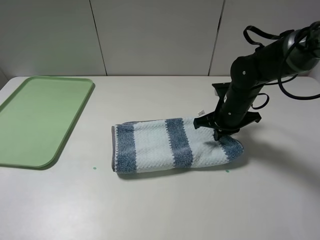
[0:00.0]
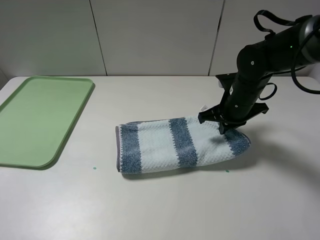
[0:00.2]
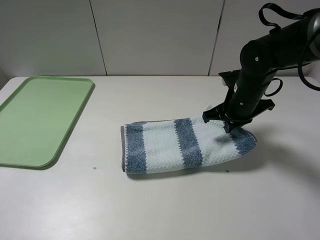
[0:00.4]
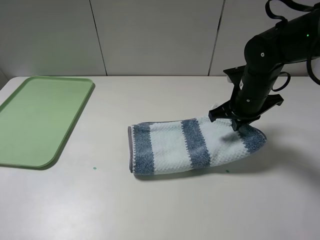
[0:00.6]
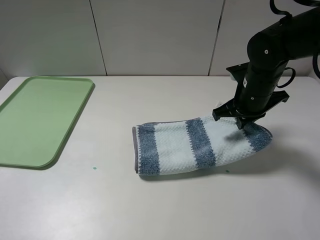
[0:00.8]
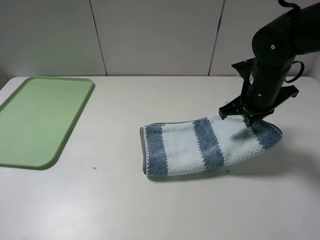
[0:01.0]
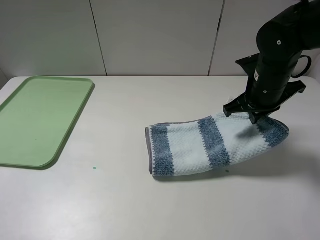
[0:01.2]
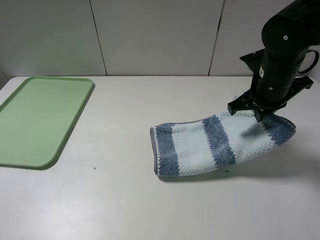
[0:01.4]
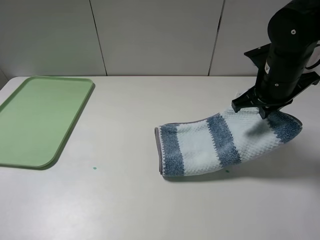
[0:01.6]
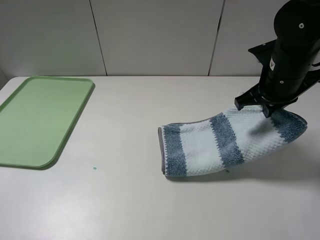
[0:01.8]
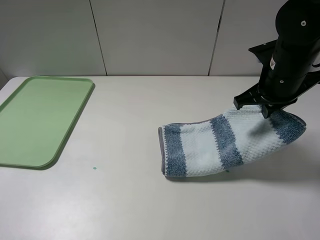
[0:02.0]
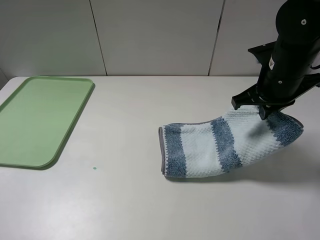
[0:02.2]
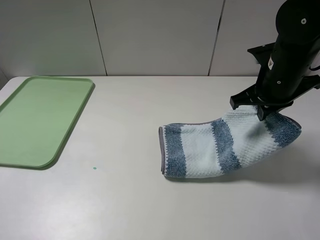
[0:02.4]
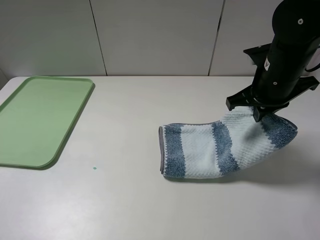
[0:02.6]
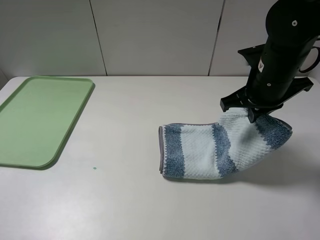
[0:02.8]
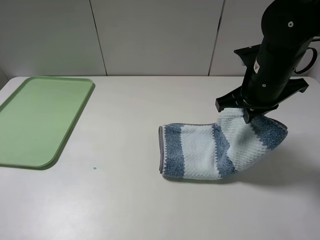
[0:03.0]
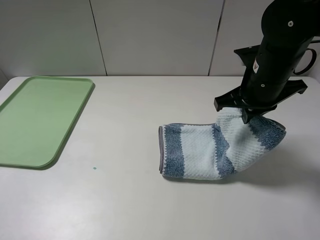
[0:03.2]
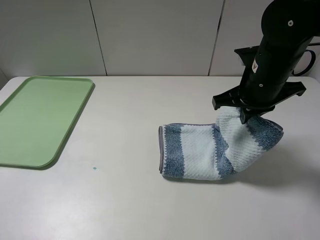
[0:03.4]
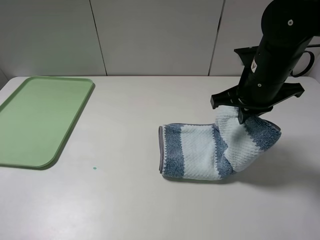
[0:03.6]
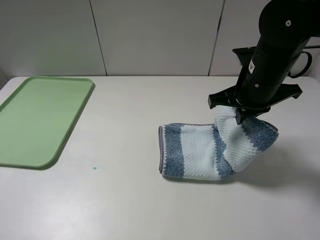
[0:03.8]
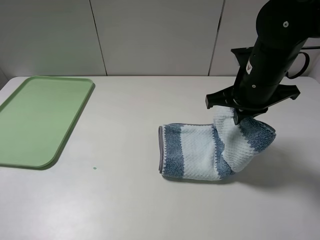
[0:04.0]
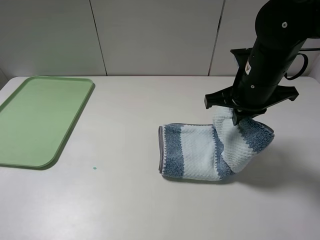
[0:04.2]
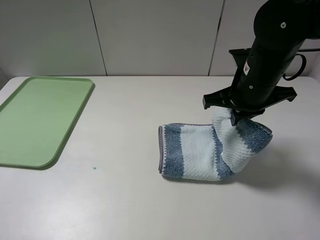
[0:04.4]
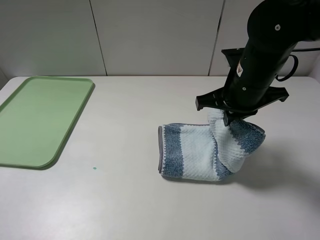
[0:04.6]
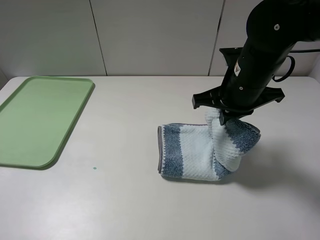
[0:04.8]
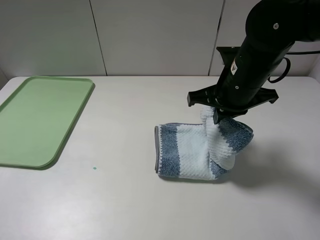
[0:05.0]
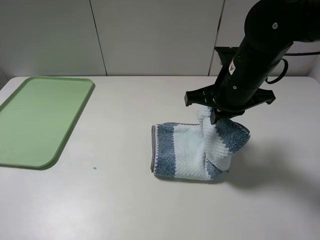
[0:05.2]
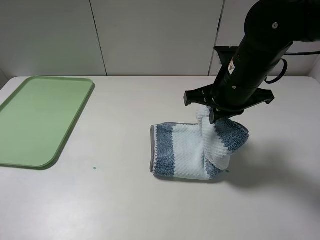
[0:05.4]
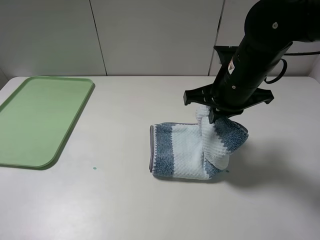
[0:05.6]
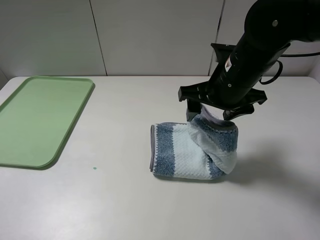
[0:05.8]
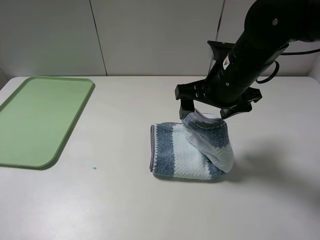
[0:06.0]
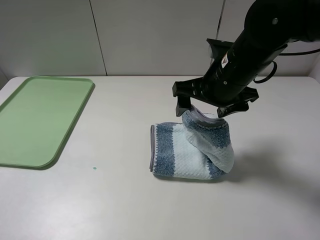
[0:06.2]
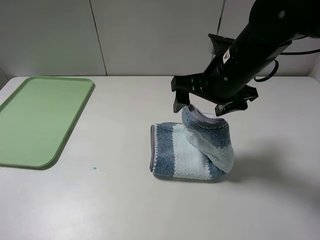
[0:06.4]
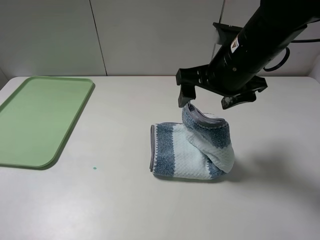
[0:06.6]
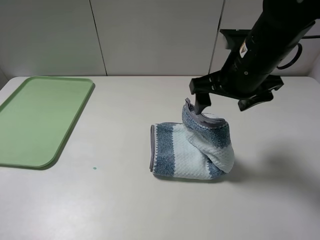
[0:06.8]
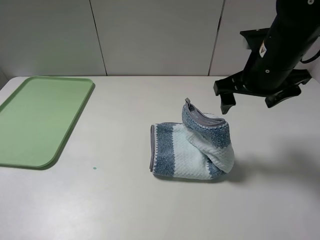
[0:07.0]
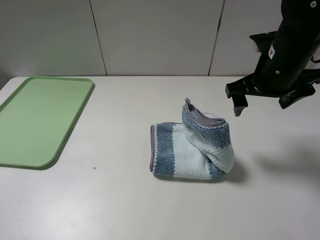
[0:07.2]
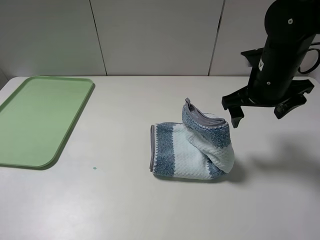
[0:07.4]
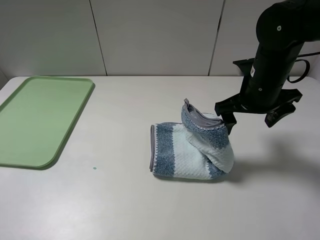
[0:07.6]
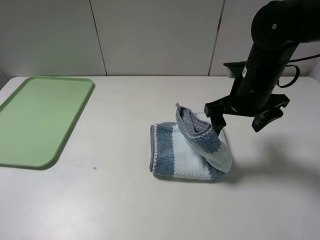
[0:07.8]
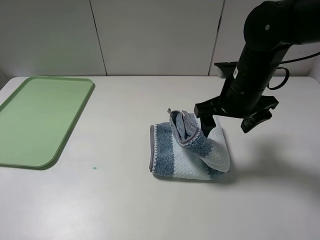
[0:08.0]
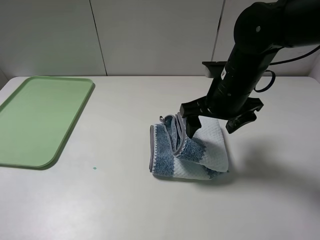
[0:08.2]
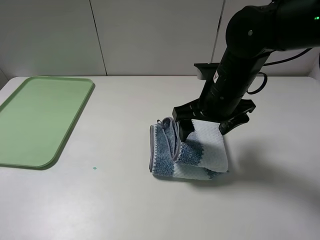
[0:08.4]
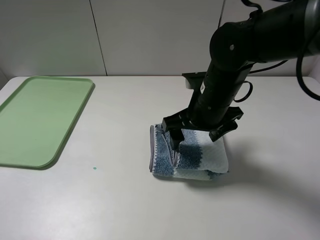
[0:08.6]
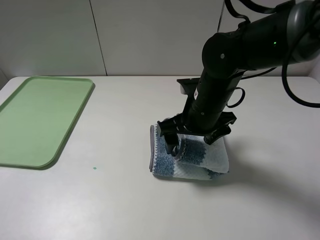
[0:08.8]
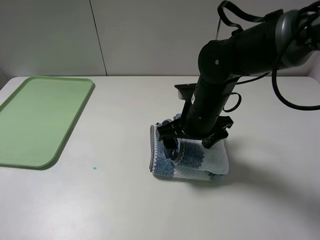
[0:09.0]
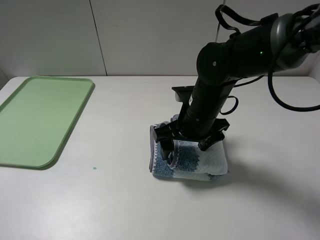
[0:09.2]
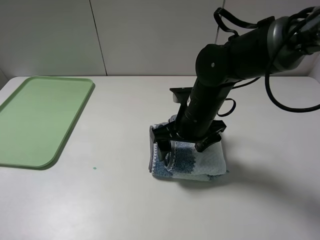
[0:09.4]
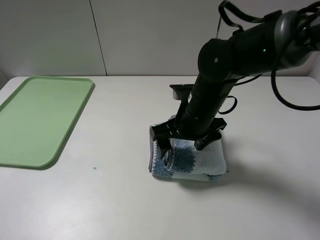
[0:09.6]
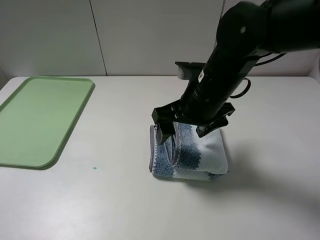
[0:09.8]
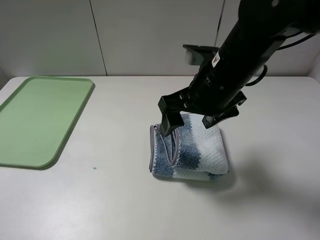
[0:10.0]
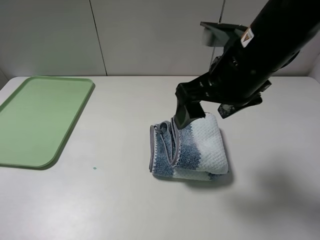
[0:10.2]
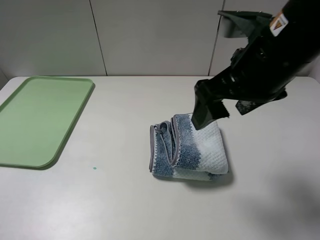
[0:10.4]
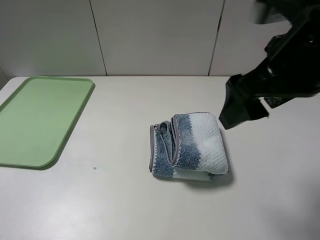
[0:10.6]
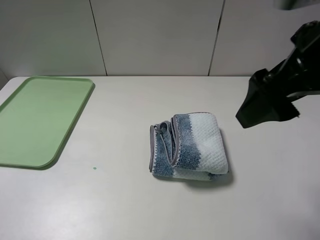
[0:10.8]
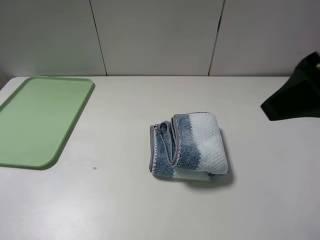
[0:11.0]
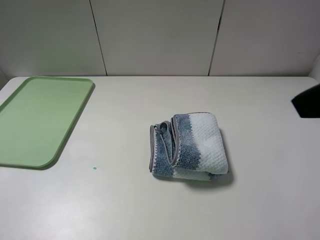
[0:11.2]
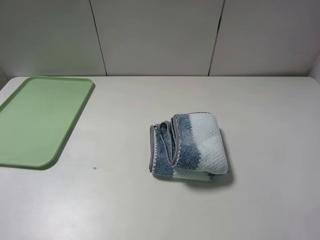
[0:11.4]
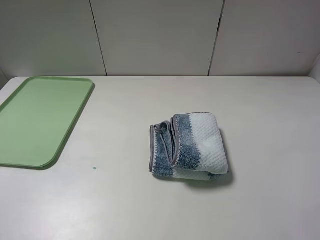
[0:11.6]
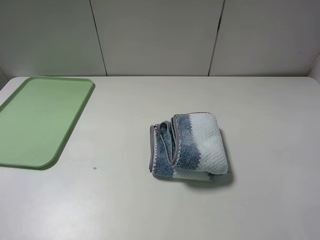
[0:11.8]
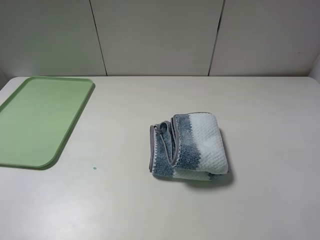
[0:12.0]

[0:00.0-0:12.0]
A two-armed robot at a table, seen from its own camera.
Step, 0:00.2 to 0:09.8: Fold the blue white towel from right to left with right gripper.
0:00.0 to 0:01.6: The right gripper goes roughly 10 cm upward.
0:01.6 to 0:04.4: The grippers move only a little.
0:04.4 to 0:06.0: The right gripper opens.
0:06.0 to 0:07.6: The right gripper goes approximately 5 cm to the right.
0:07.6 to 0:09.0: The right gripper shifts approximately 10 cm to the left.
0:09.0 to 0:10.4: The right gripper heads upward and backward, covering approximately 15 cm.
0:10.4 to 0:12.0: The right gripper shifts about 25 cm backward and to the right.

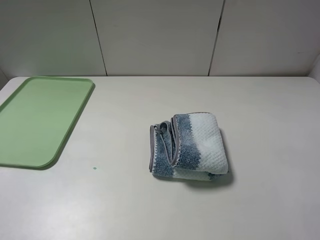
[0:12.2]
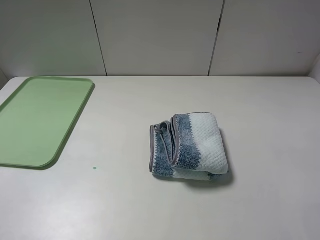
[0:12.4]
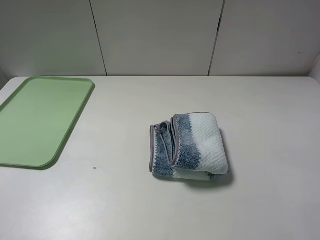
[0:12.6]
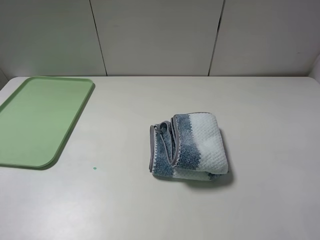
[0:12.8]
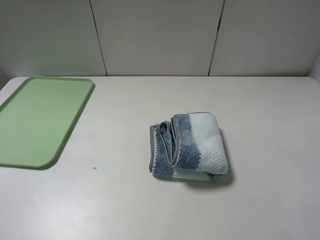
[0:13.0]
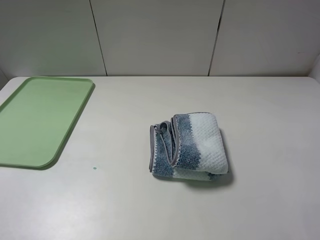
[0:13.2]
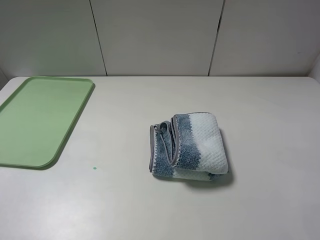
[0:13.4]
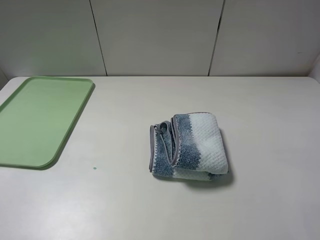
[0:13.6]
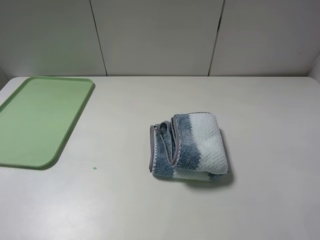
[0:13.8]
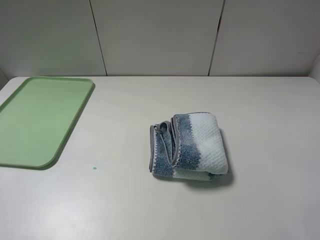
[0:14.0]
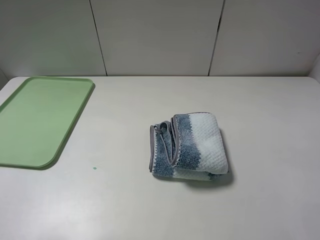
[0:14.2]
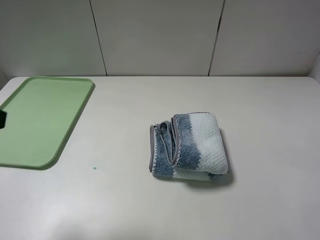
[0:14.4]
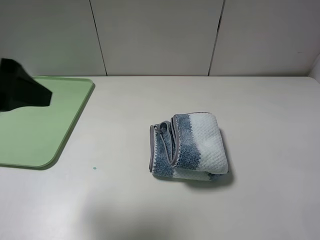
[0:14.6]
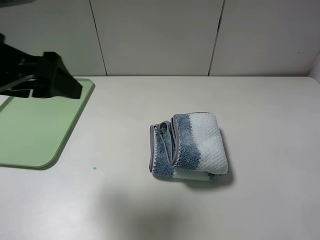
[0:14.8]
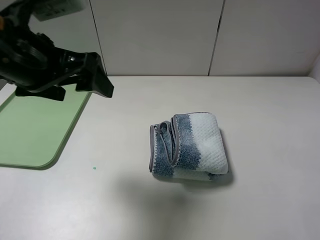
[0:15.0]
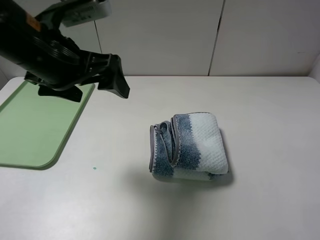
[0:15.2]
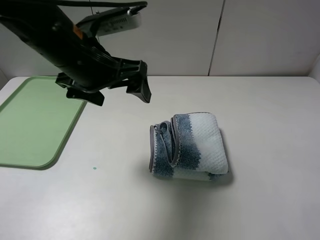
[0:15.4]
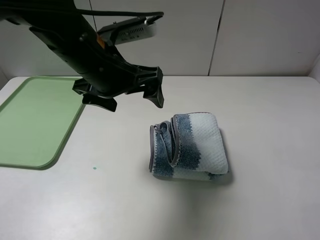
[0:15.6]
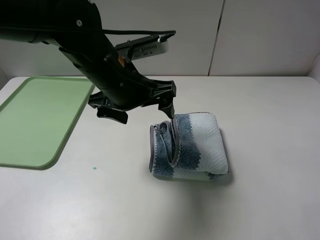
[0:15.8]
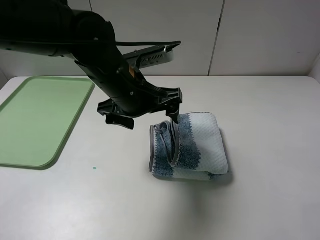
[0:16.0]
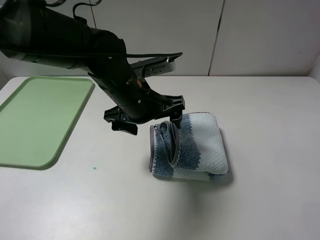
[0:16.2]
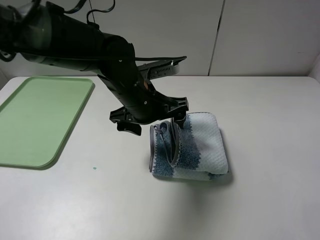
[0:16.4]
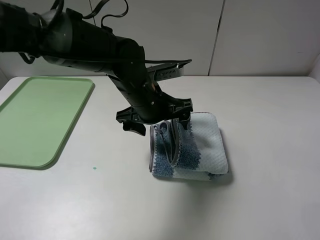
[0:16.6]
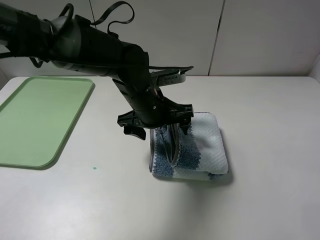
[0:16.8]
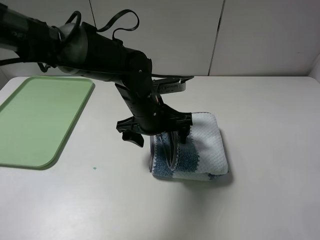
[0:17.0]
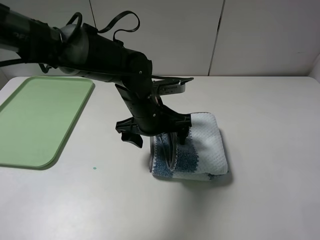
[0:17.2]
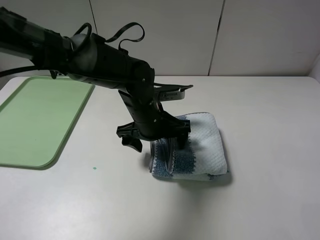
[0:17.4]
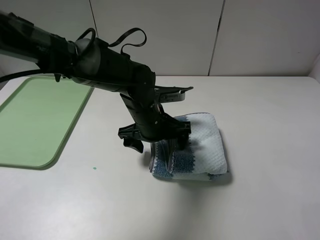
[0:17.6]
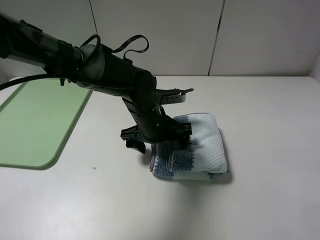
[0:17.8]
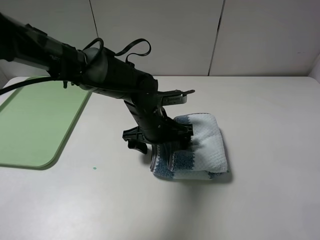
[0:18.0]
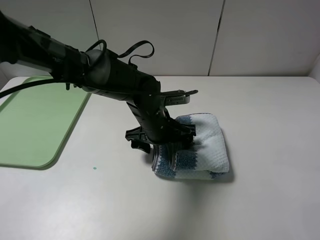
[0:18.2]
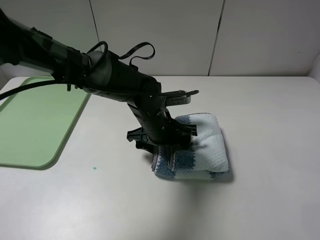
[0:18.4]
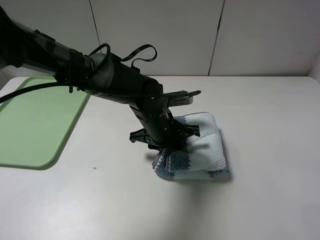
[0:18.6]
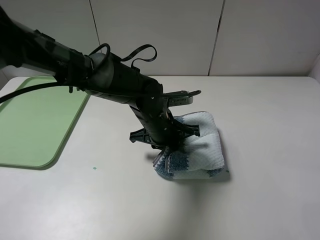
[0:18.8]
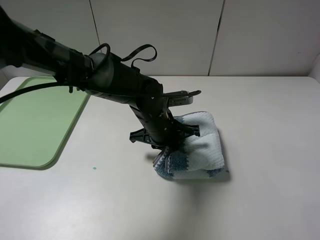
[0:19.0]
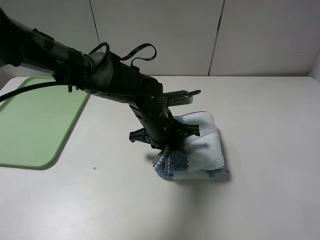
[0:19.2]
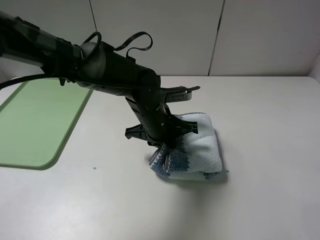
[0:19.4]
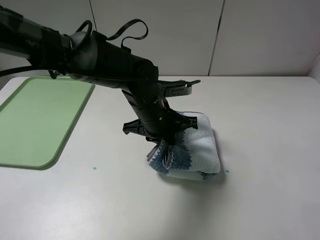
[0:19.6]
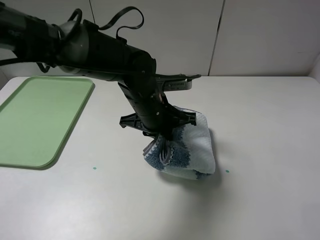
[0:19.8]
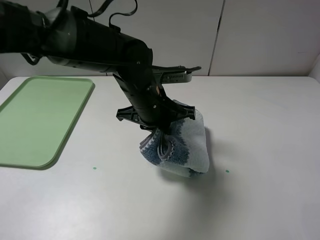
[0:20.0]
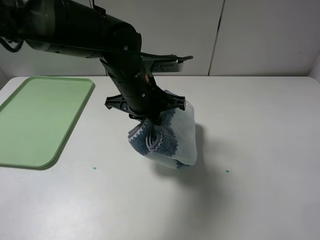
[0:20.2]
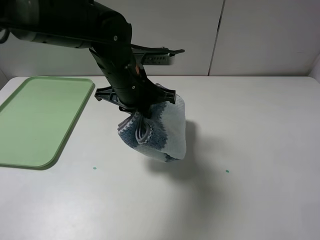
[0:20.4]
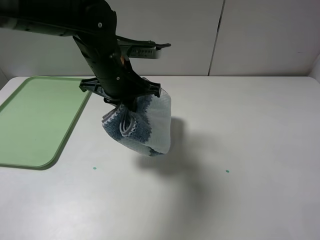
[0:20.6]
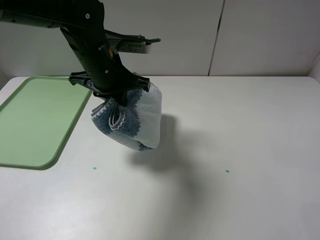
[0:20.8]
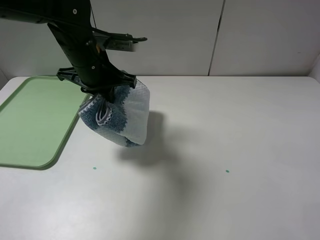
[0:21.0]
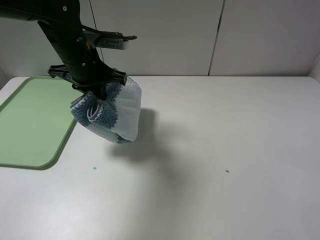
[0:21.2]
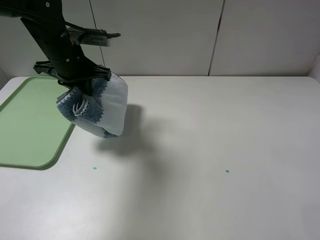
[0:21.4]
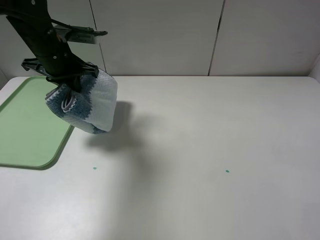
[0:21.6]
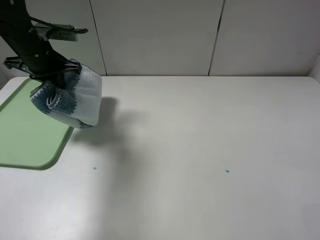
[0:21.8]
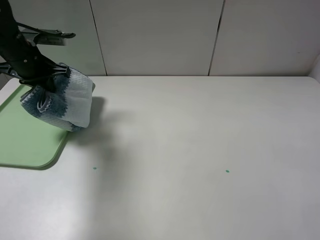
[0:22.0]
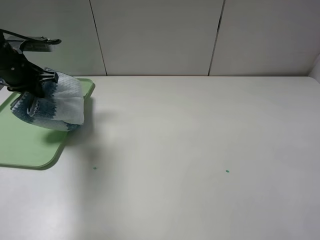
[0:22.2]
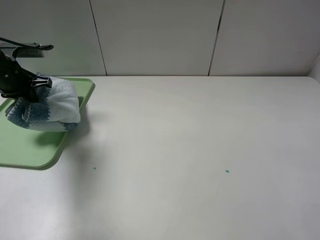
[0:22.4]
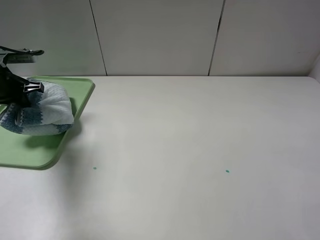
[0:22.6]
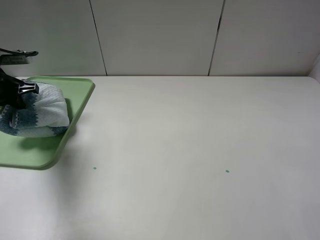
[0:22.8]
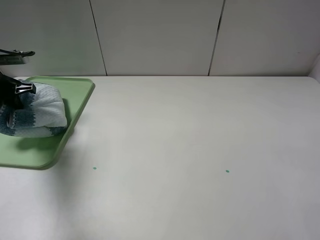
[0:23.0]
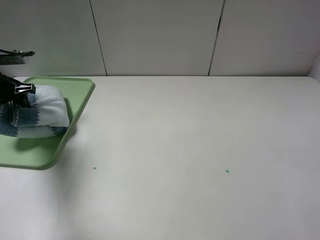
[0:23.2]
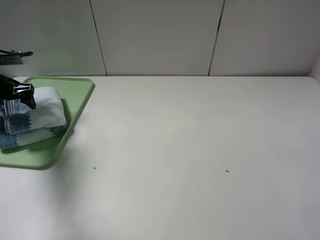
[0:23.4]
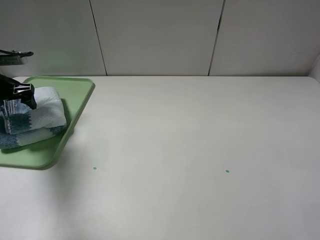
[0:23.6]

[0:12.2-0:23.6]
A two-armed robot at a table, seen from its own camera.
Step, 0:12.2 to 0:19.0: Grasp the blue white towel with the left gripper.
0:12.2 to 0:13.6: Both grippers stay about where they are.
0:13.6 to 0:15.0: The left gripper shifts some 25 cm forward and to the right.
0:15.0 to 0:16.4: The left gripper goes some 20 cm to the right, downward and forward.
0:16.4 to 0:17.8: The left gripper goes some 5 cm downward.
0:17.8 to 0:19.4: The left gripper closes its fingers.
0:19.4 to 0:20.8: The left gripper goes some 15 cm upward and to the left.
0:20.8 to 0:22.2: The left gripper moves to the left, some 25 cm.
0:22.2 to 0:23.6: The left gripper goes approximately 5 cm to the left, and opens.
